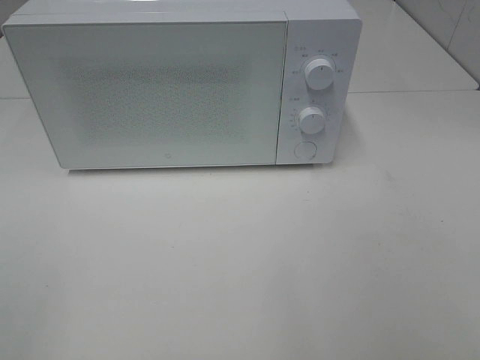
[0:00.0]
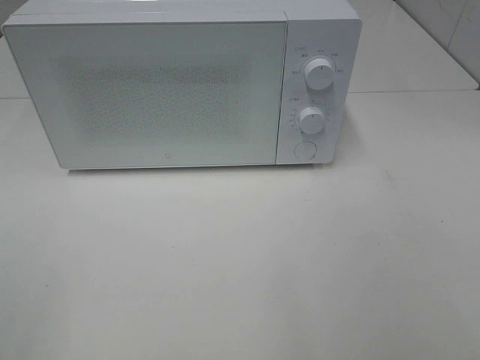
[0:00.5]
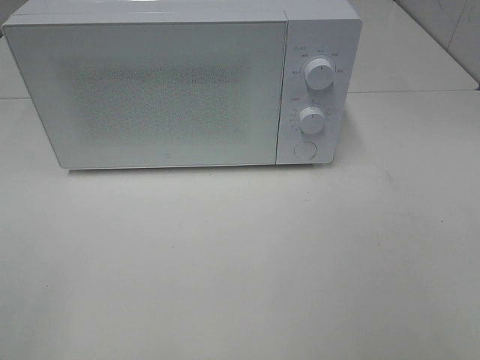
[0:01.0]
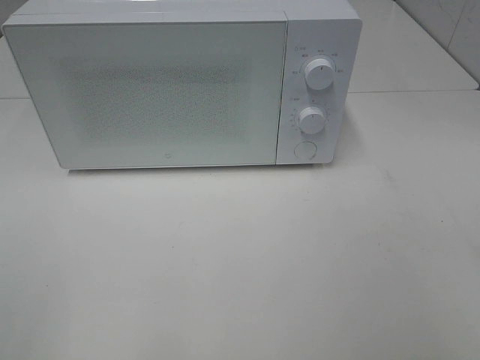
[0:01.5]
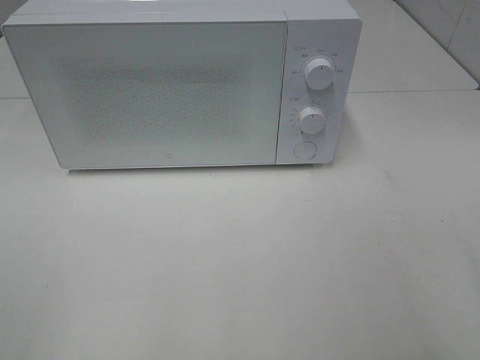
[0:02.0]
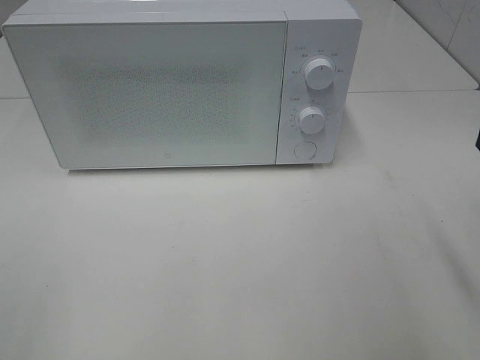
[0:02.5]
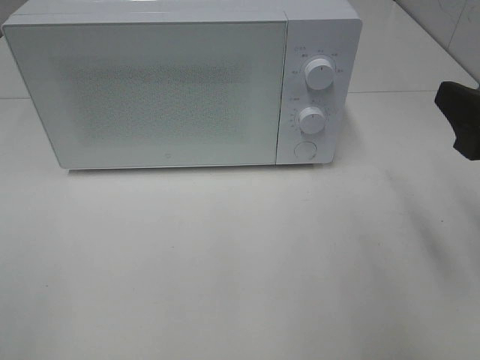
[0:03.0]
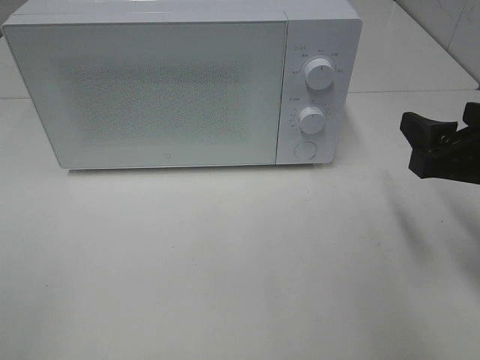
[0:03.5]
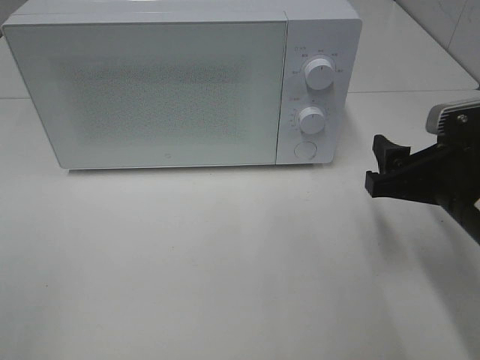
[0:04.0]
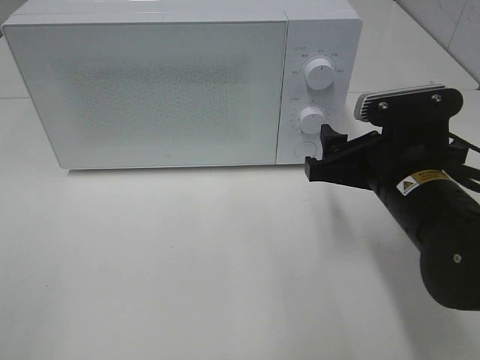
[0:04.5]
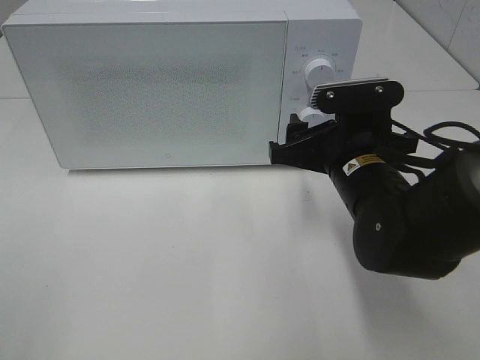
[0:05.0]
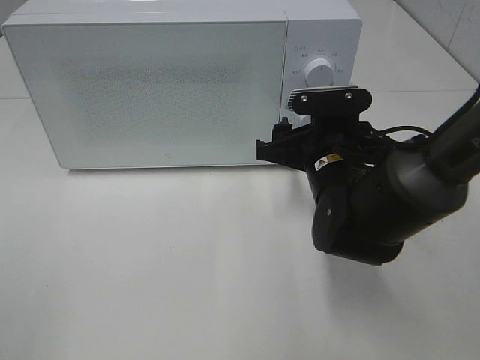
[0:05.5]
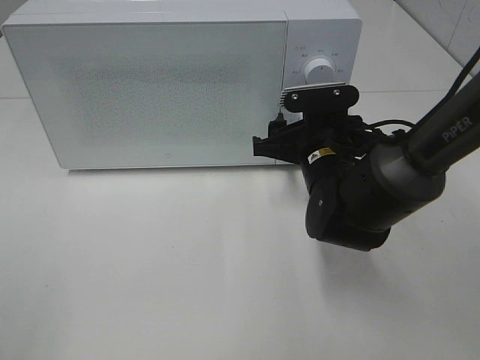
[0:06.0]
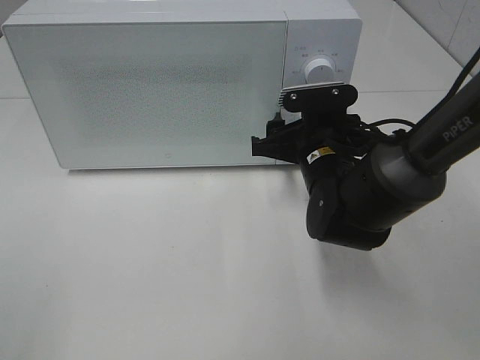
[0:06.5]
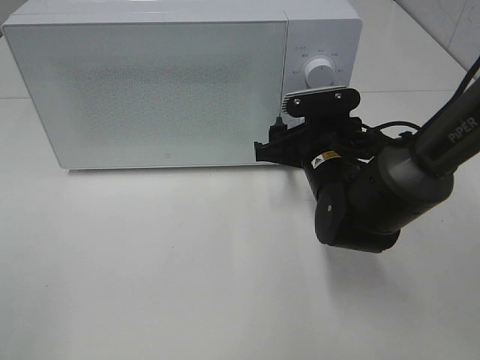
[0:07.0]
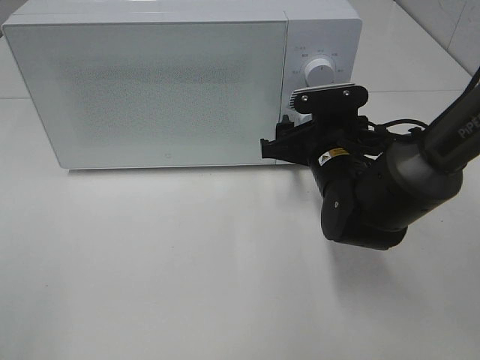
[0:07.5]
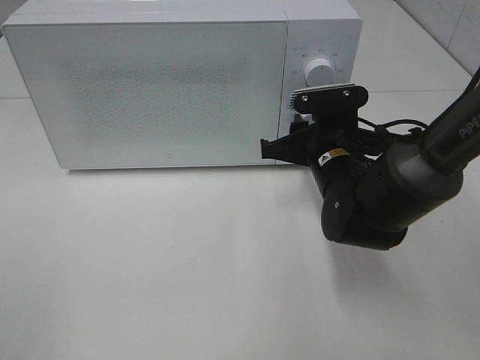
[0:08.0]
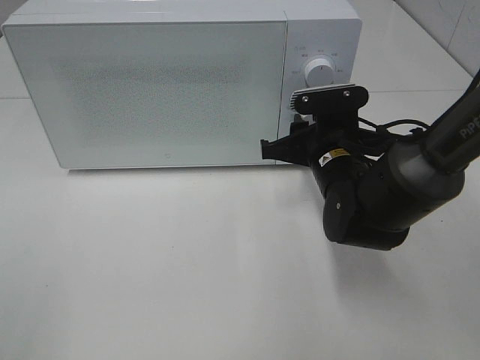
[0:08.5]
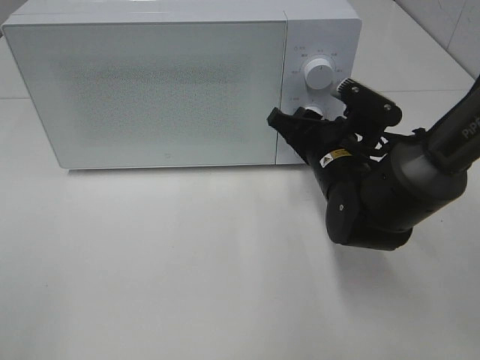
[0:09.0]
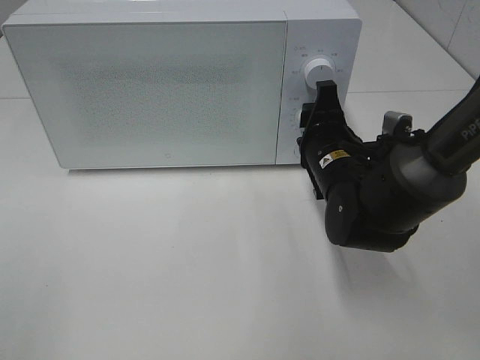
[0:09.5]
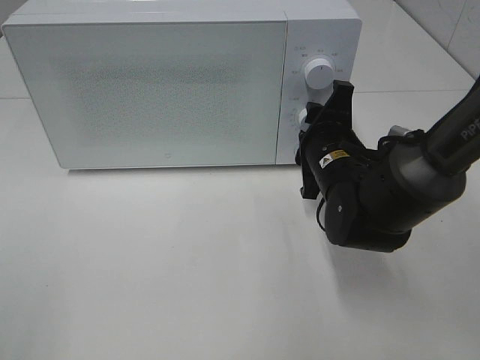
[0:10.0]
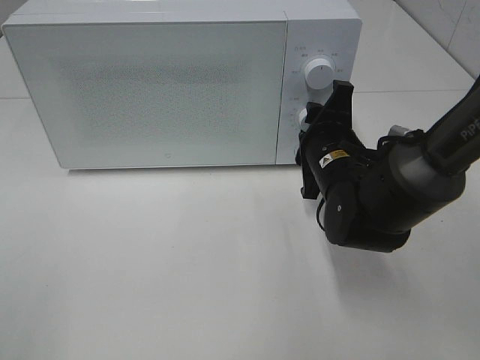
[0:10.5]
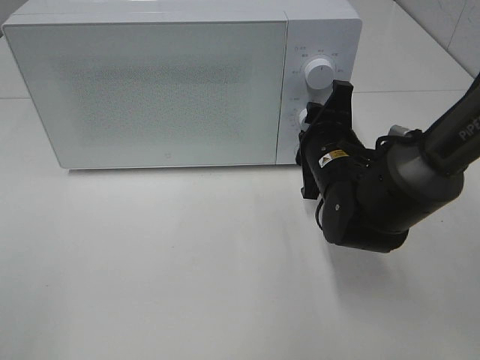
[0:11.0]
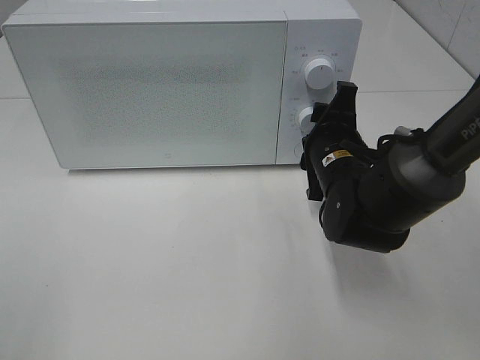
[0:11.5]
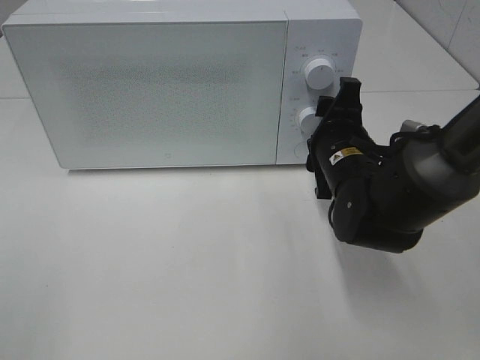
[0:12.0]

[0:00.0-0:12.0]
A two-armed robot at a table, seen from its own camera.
Task of the whole recording: Heat the burger.
Step, 0:00.0 to 0:11.5: Right hand: twist timer button.
0:02.0 to 0:04.0: The right gripper is displaced forward, downward and to the left by roughly 20 cm.
0:04.0 to 0:06.0: The right gripper travels forward and to the left by some 15 cm.
0:06.0 to 0:08.0: The right gripper closes up.
0:10.0 to 0:12.0: The grippers stay close to where they were, moving slightly.

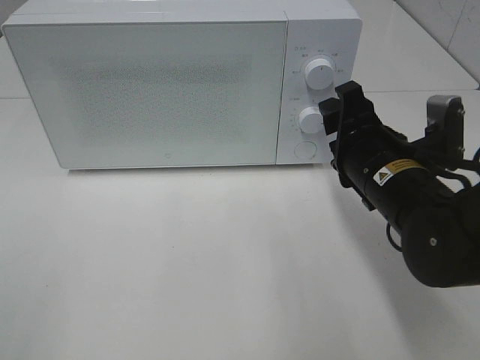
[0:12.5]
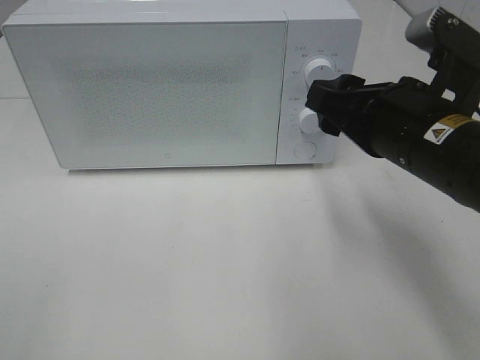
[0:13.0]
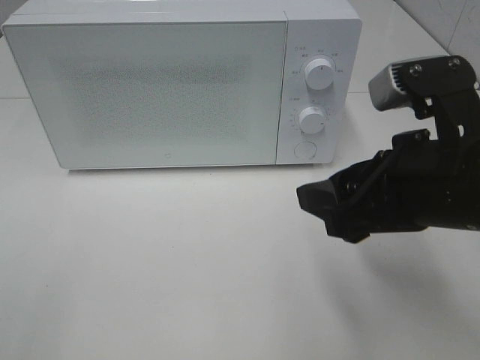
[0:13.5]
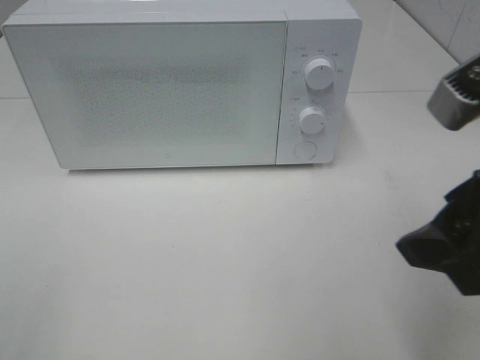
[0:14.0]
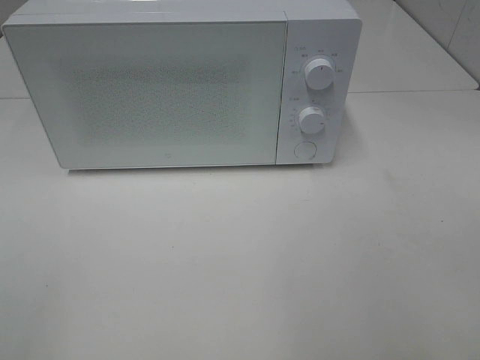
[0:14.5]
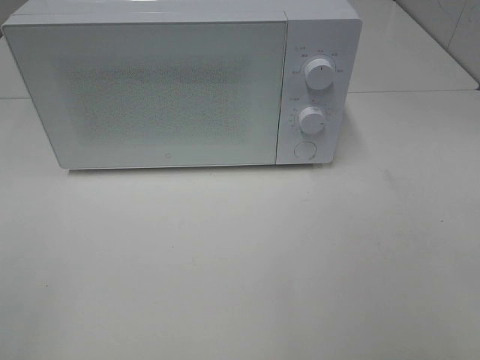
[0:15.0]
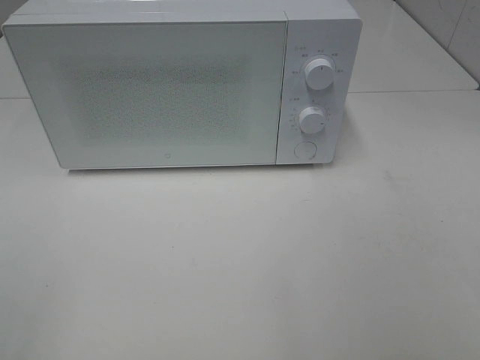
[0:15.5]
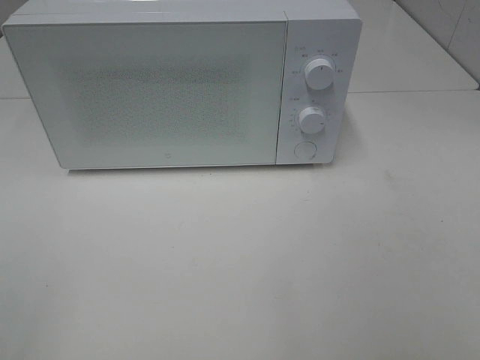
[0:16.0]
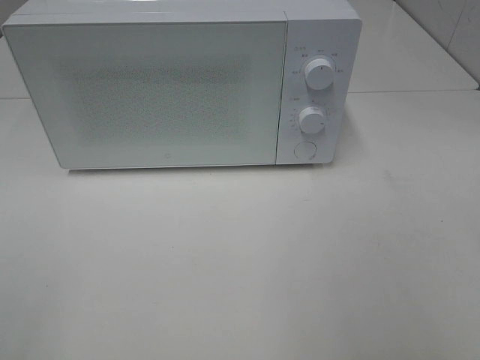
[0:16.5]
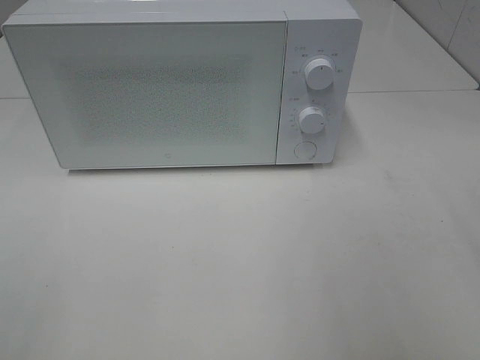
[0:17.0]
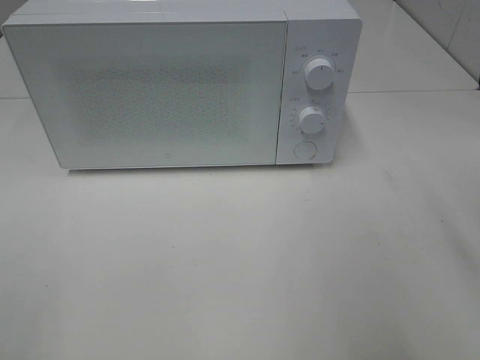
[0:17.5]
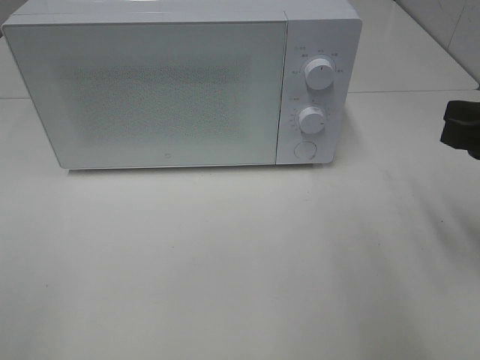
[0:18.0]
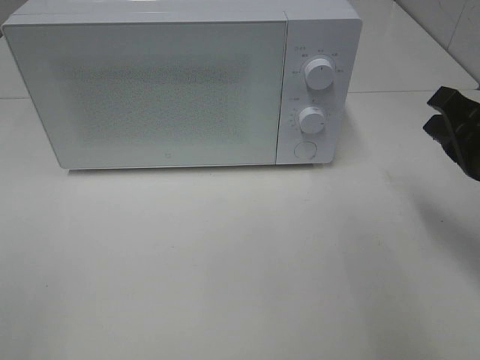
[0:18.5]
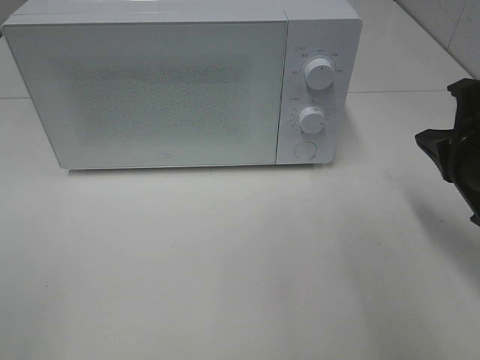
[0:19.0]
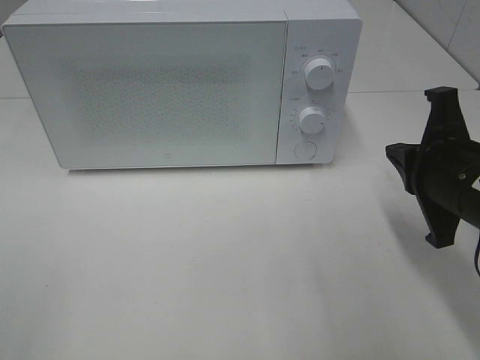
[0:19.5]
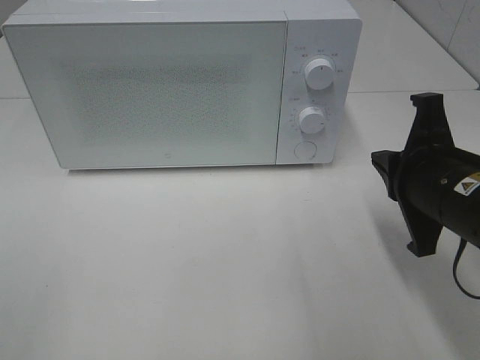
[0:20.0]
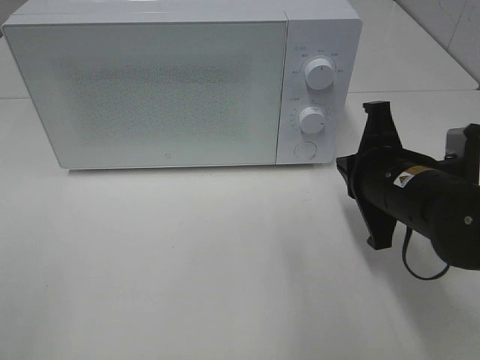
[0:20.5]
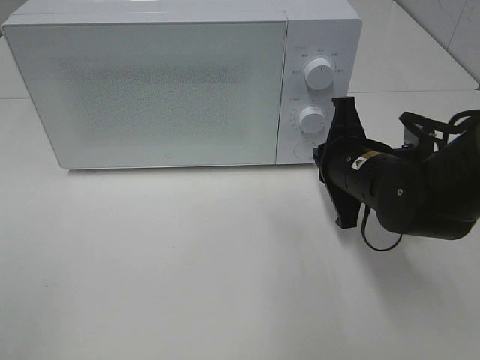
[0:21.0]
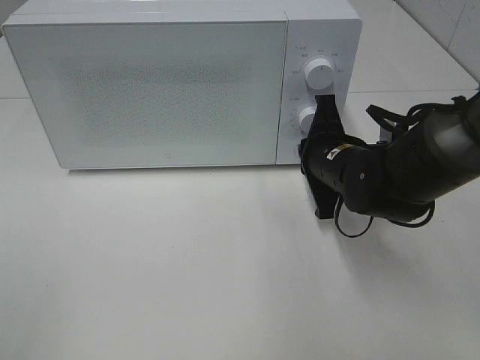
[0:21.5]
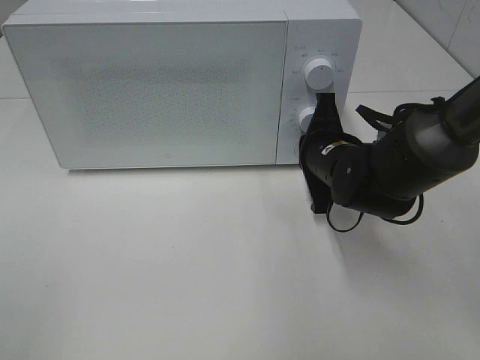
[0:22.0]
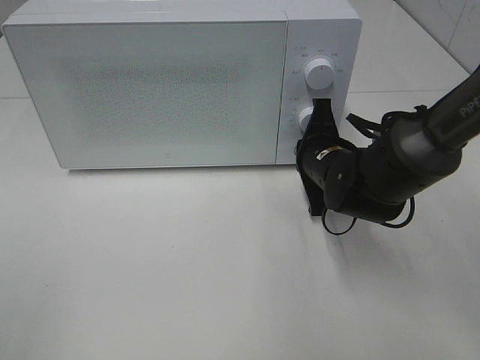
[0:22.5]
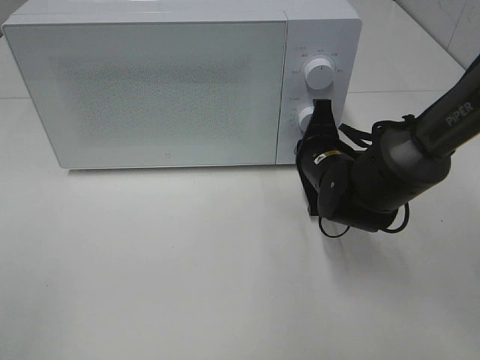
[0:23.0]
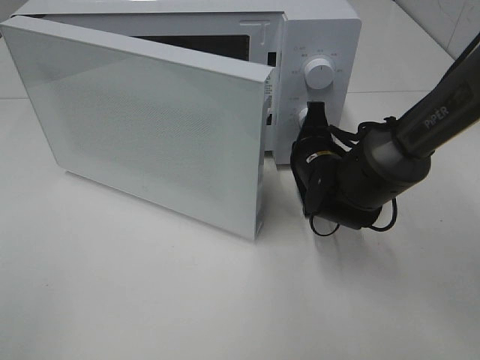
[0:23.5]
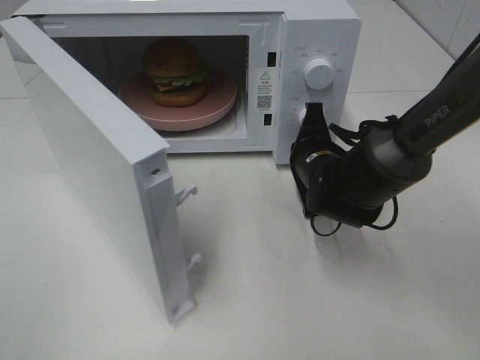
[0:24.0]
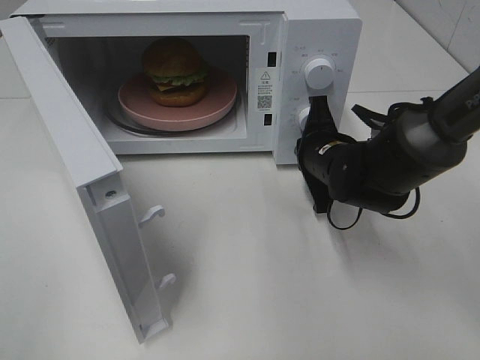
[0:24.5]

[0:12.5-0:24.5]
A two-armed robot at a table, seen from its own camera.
Task of the whole recording: Heat the burger.
0:12.5 to 0:14.5: The right gripper heads backward, upward and to the right, covering approximately 25 cm.
0:16.5 to 0:18.5: The right gripper goes roughly 20 cm forward and downward, and closes up.
0:18.5 to 0:20.5: The right gripper shifts about 10 cm to the left.
0:20.5 to 0:22.5: The right gripper is displaced forward and downward by some 10 cm.

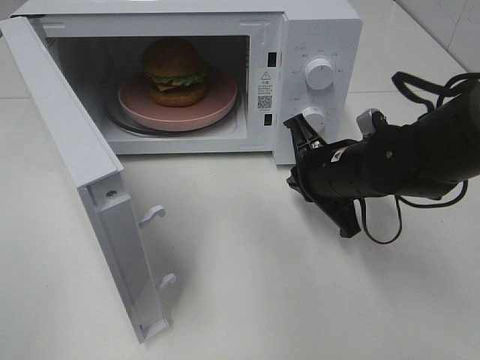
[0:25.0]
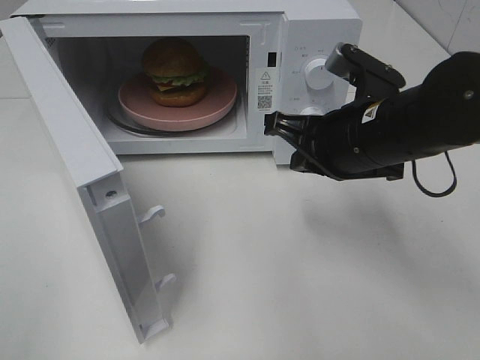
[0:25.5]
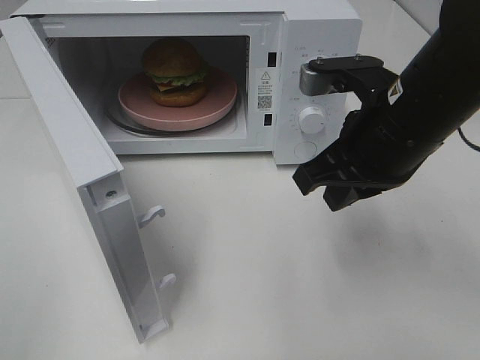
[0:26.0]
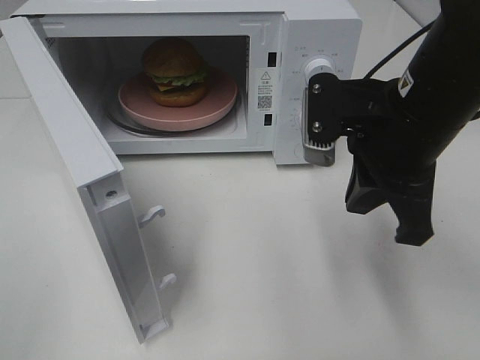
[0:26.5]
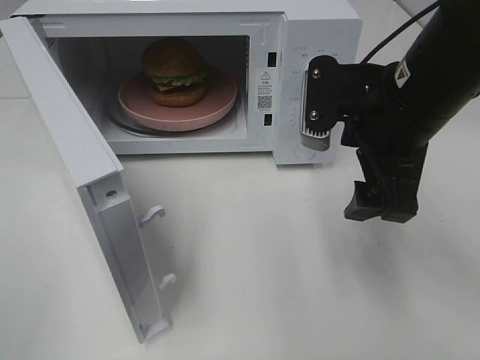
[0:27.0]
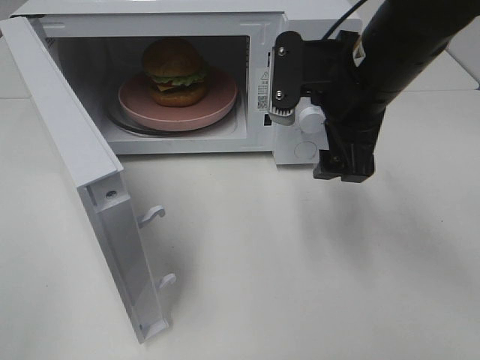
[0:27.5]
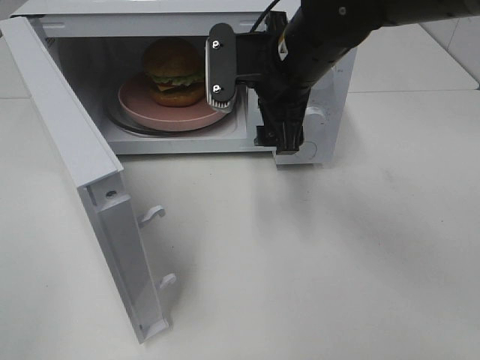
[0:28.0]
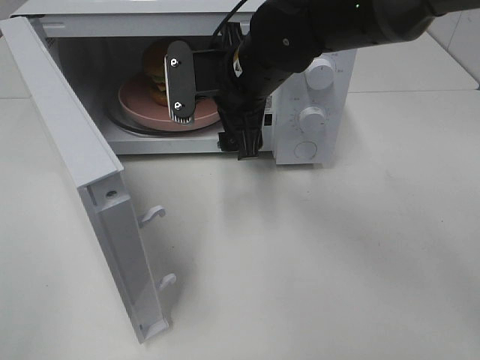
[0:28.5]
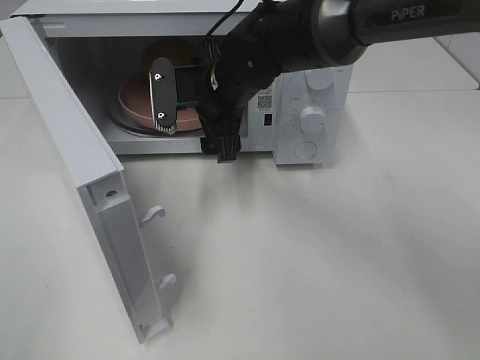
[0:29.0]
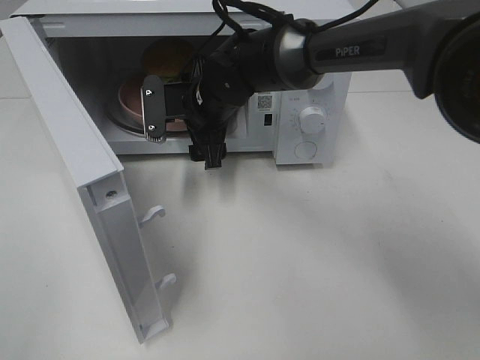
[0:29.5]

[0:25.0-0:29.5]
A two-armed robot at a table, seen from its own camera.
Task of the whole recording: Heat the burger.
0:25.0 to 0:27.0: The right gripper heads upward, covering approximately 10 cm, and opens.
0:27.0 to 0:29.5: The right gripper is displaced to the left, forward and downward by about 25 cm.
